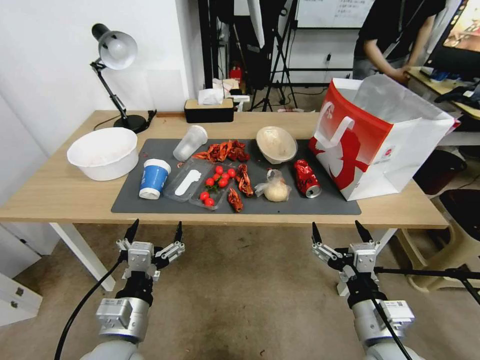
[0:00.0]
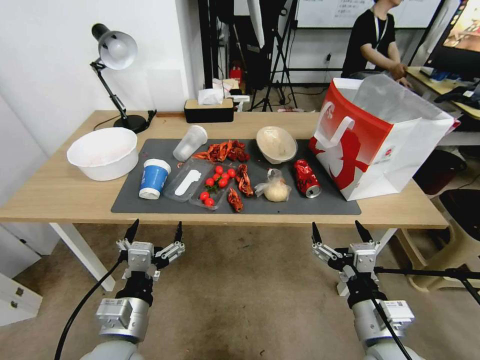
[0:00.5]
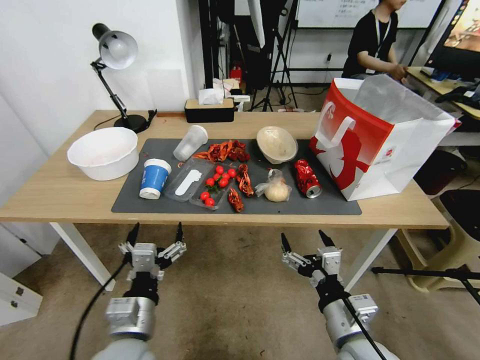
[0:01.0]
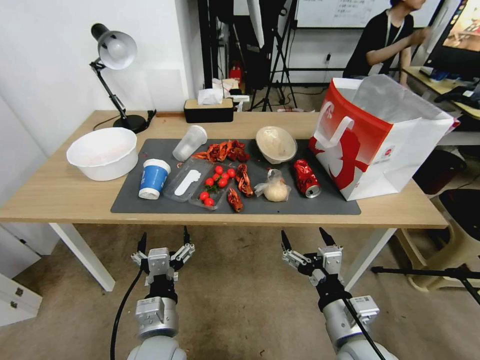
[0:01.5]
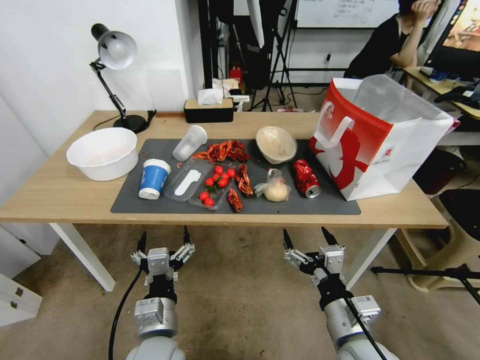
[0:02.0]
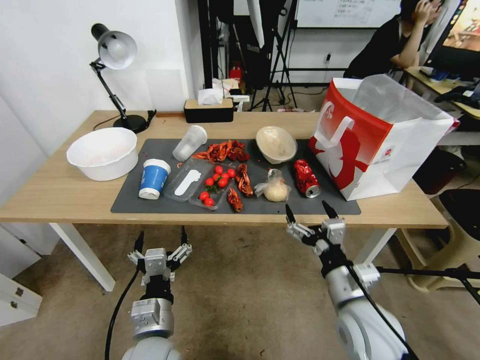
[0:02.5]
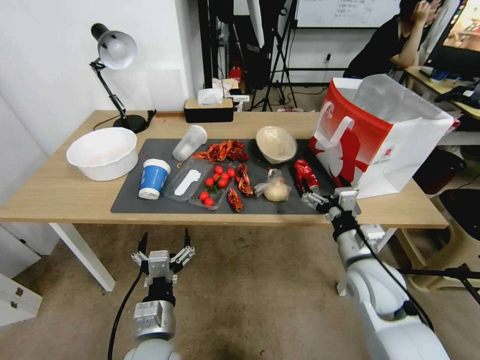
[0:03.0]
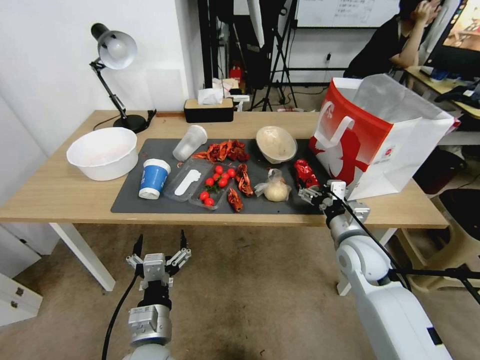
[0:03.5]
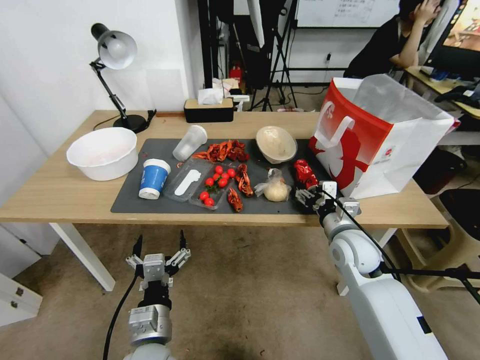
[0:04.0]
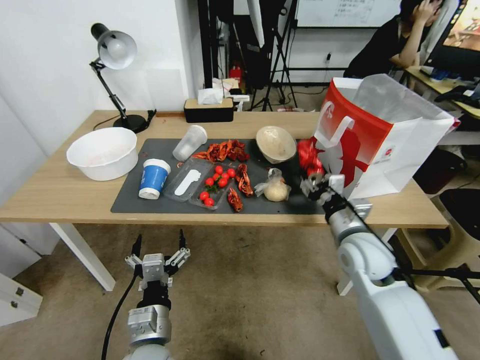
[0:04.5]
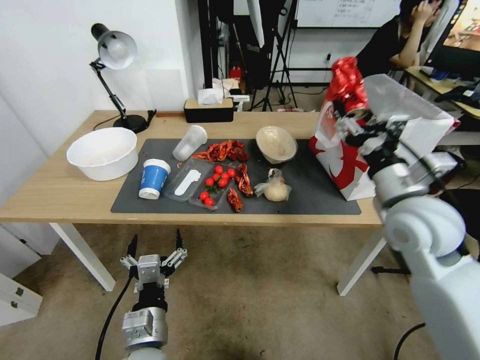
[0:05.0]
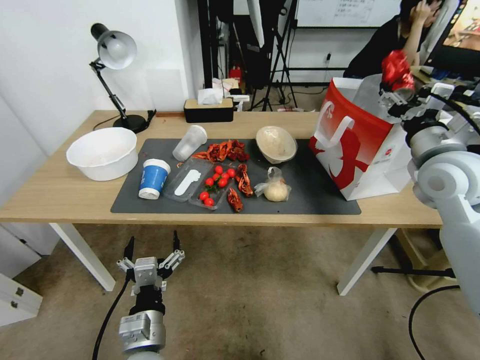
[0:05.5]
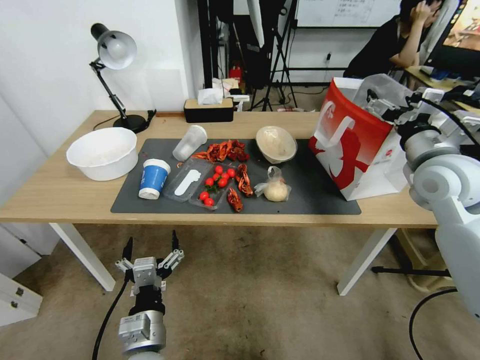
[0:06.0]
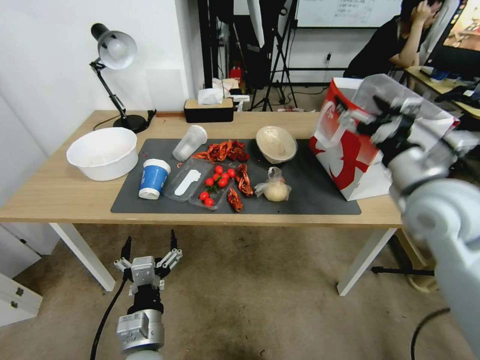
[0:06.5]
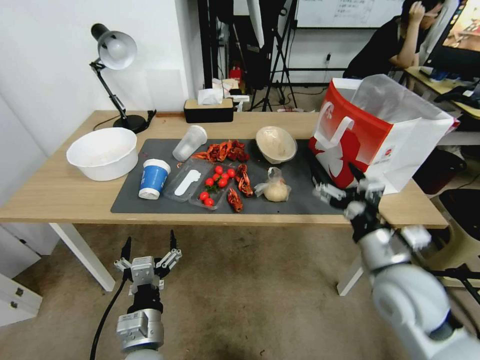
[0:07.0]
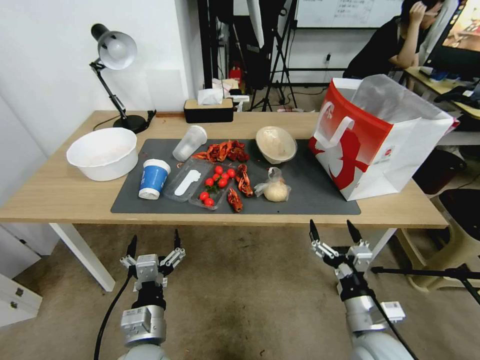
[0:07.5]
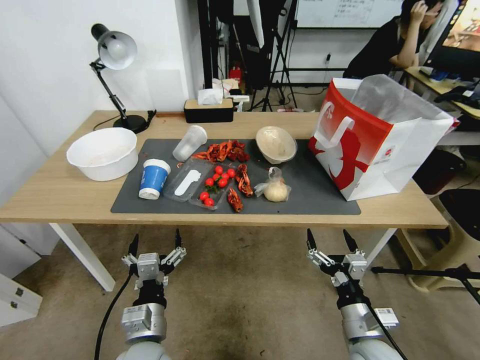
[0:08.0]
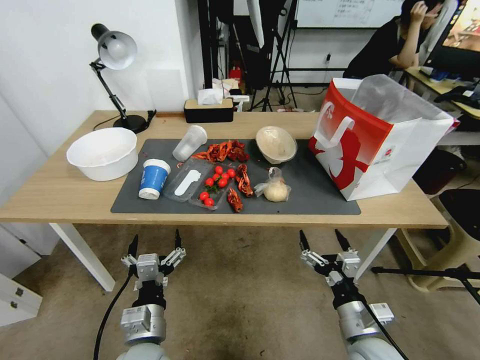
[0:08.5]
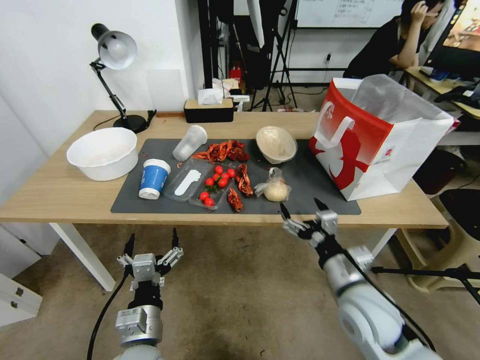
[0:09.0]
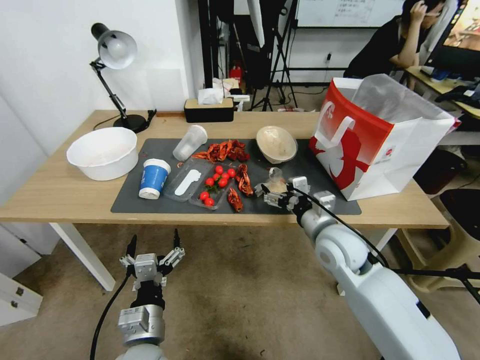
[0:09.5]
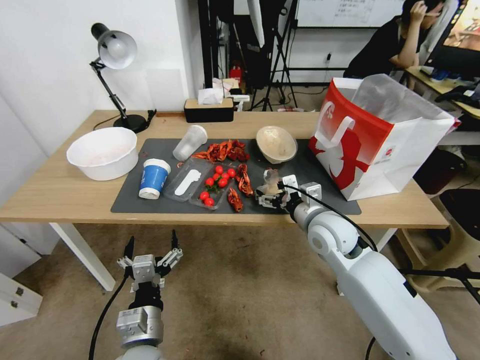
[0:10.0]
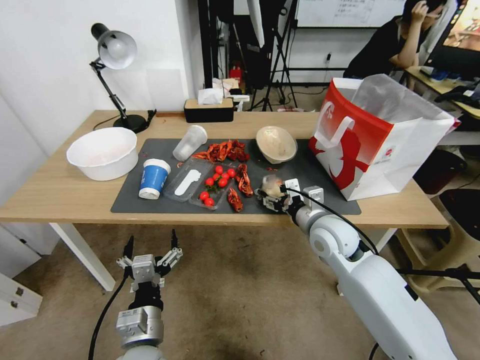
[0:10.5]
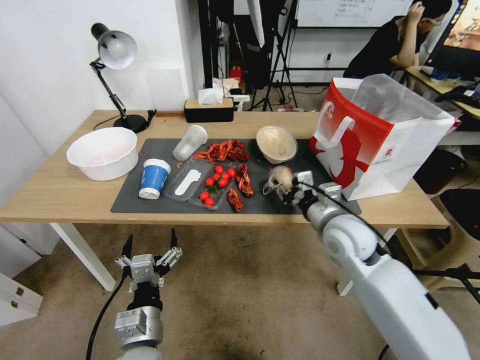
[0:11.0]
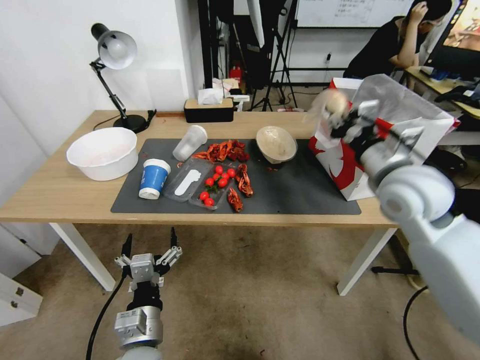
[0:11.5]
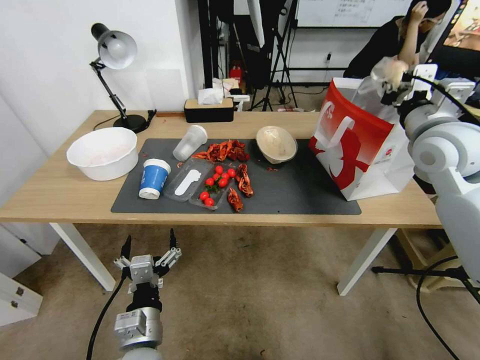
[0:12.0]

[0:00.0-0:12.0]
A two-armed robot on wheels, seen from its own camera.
0:02.0 to 0:04.0: The right gripper moves forward, about 20 cm.
0:04.0 to 0:06.0: The right gripper is displaced upward and to the right by some 20 cm.
0:06.0 to 0:08.0: The right gripper heads downward and backward, covering approximately 35 cm.
0:08.0 to 0:10.0: The right gripper travels forward and upward by some 25 cm.
0:10.0 to 0:12.0: The right gripper travels upward and to the right by about 25 cm, and closes.

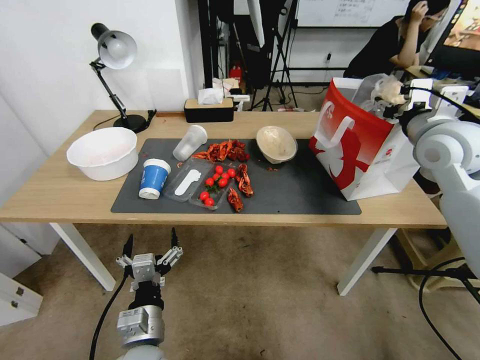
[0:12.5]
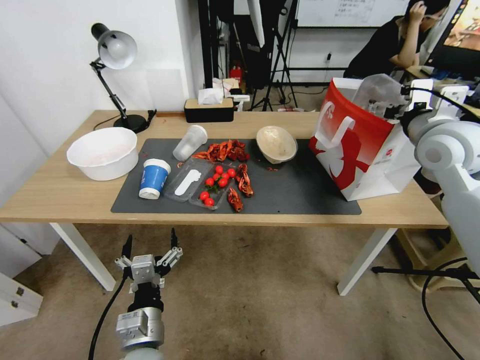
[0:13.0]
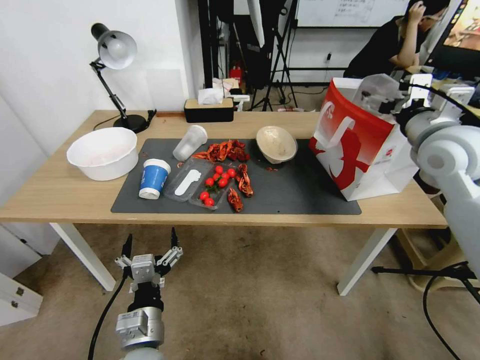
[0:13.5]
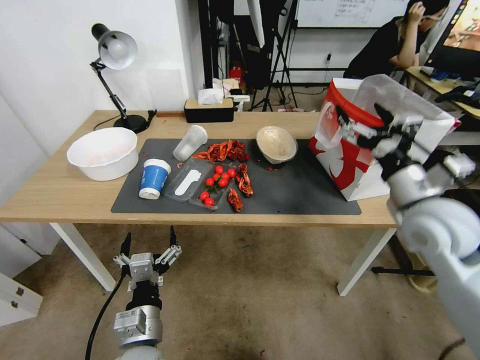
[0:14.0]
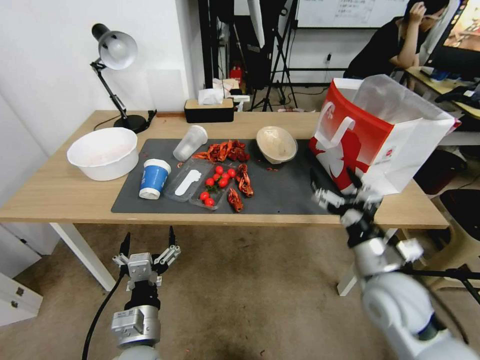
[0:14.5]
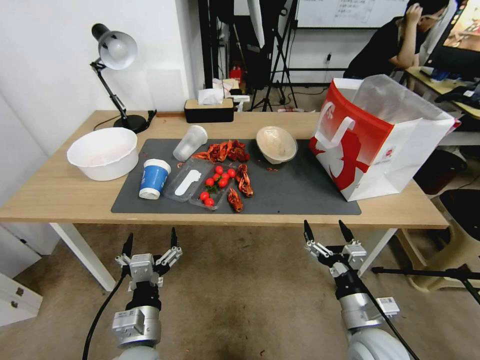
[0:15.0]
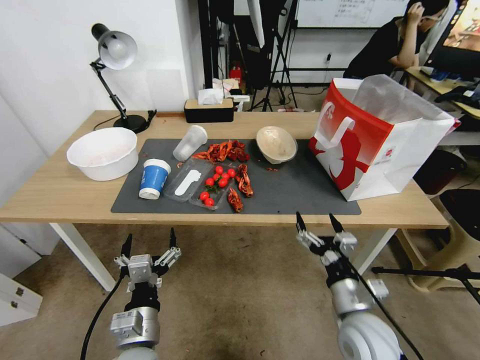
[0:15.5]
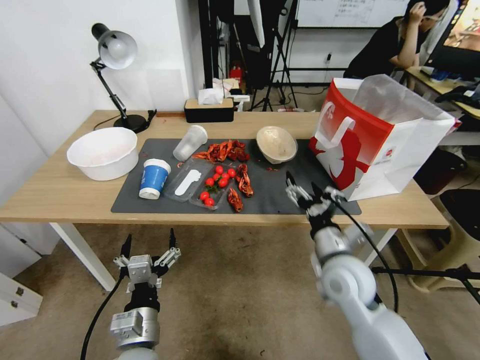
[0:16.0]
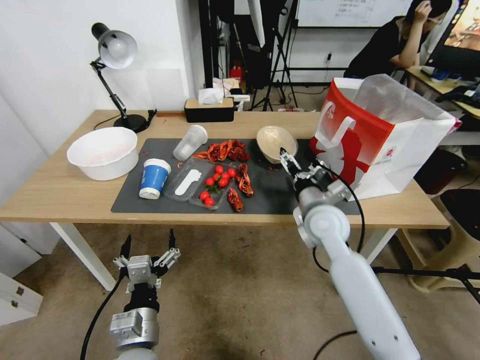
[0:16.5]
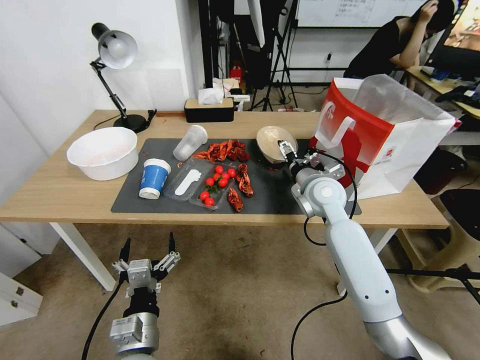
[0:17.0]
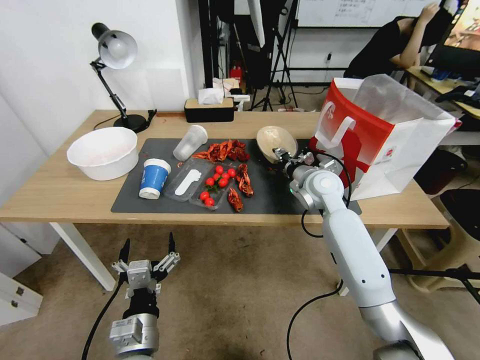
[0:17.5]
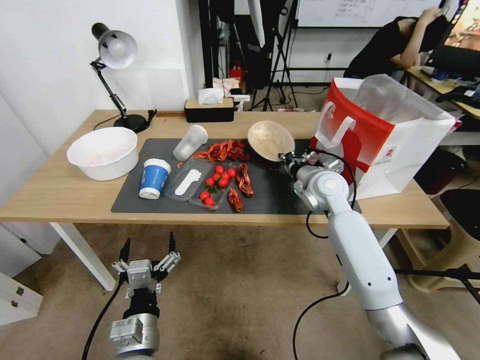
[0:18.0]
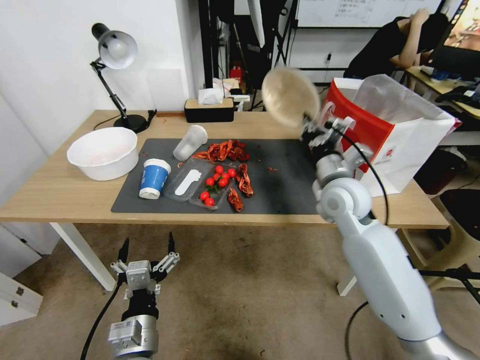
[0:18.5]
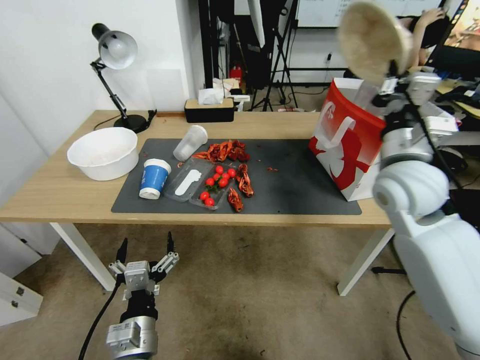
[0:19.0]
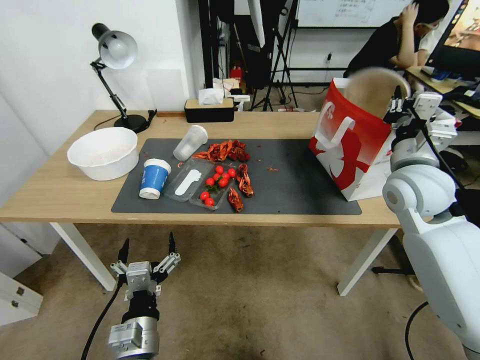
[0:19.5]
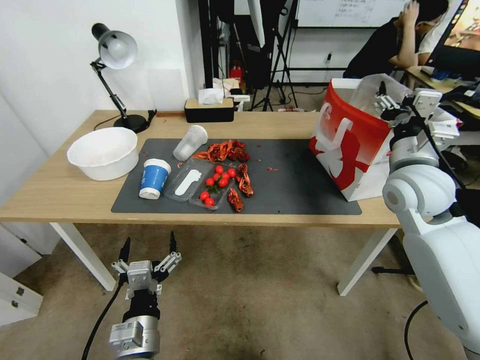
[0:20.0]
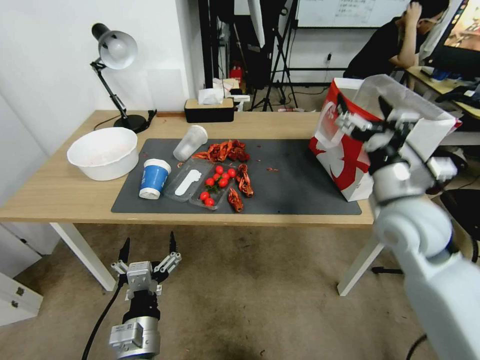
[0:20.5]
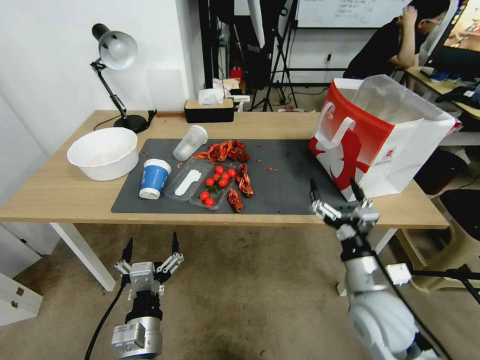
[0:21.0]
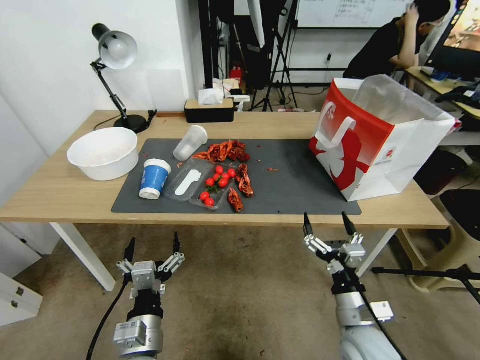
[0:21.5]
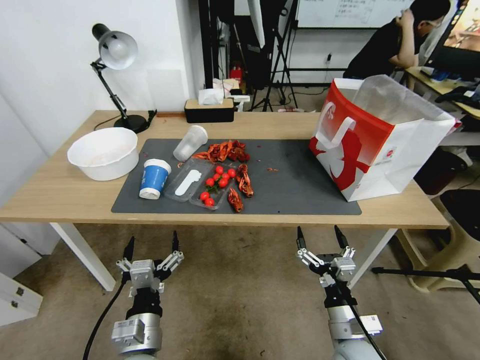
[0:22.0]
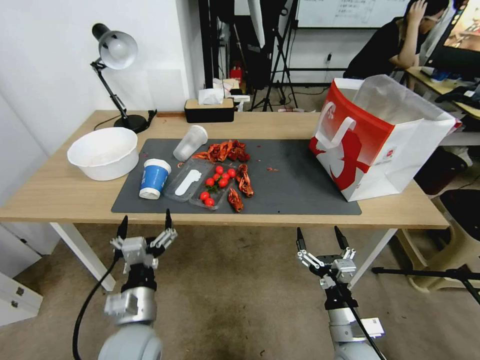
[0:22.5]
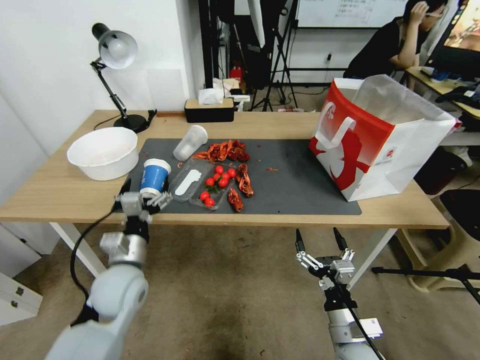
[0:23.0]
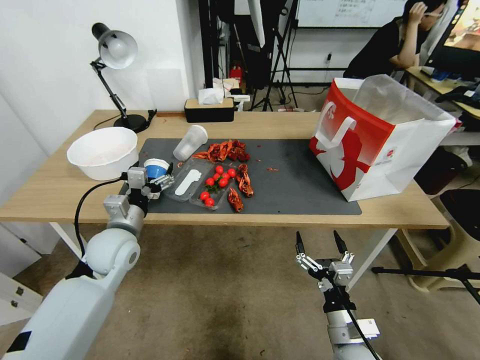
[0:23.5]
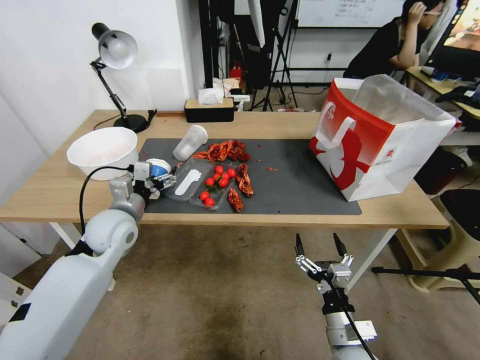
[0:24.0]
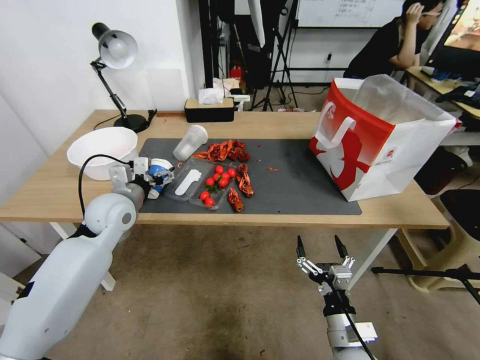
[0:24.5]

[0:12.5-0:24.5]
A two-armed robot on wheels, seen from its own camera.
0:12.5 to 0:14.5: The right gripper travels downward, backward and to the left by about 30 cm, and opens its fingers.
0:14.5 to 0:16.5: The right gripper travels forward and to the left by about 20 cm.
0:16.5 to 0:18.5: The right gripper goes forward and returns, about 10 cm each way, and closes up.
0:18.5 to 0:20.5: The right gripper shifts roughly 15 cm backward and to the right, and opens its fingers.
0:20.5 to 0:22.5: The right gripper travels downward and backward by roughly 30 cm.
0:22.5 to 0:24.5: The left gripper heads forward, upward and to the left, covering roughly 25 cm.

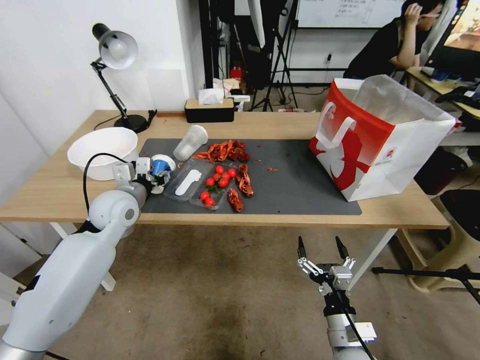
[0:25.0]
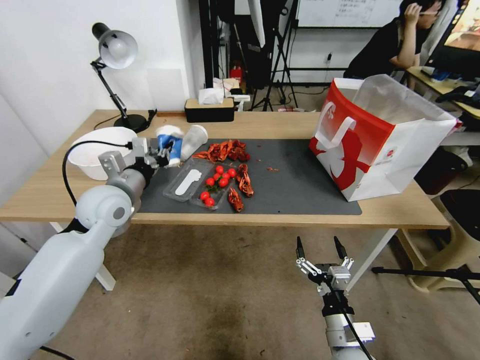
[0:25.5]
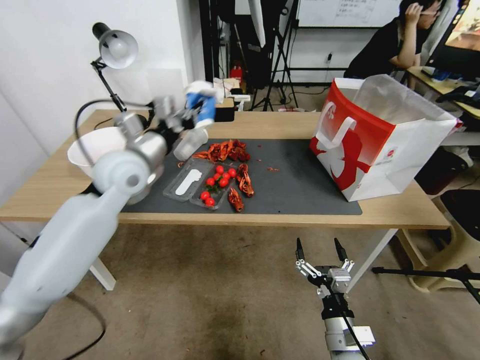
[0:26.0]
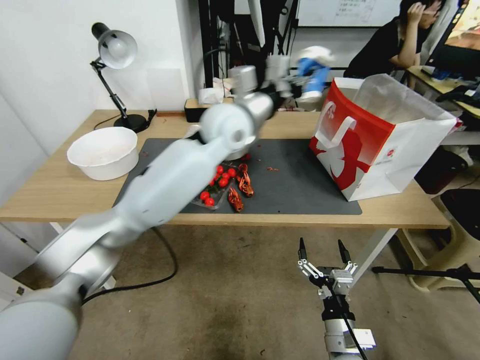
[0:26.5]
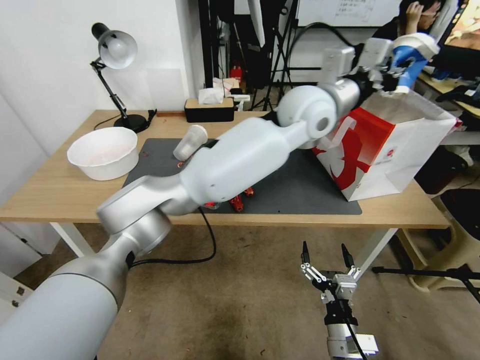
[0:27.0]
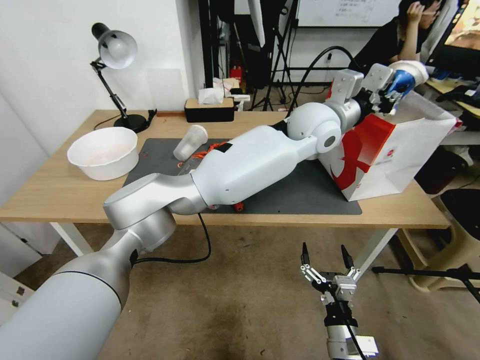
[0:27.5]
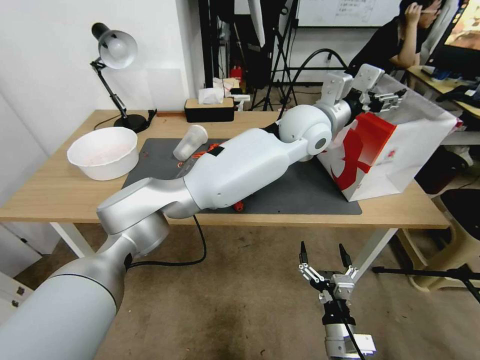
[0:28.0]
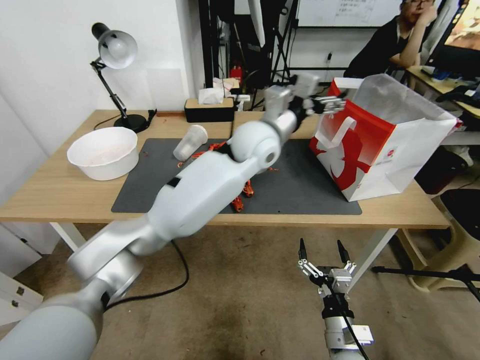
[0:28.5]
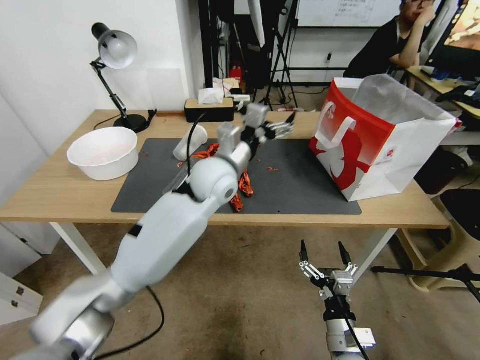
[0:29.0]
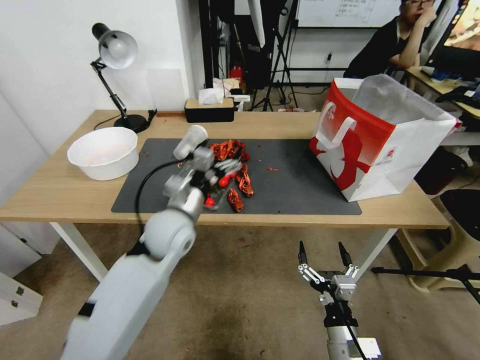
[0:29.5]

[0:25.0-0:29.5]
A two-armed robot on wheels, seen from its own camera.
0:25.0 to 0:27.0: The left gripper goes approximately 40 cm to the right and upward, and closes its fingers.
0:27.0 to 0:29.5: The left gripper is displaced to the left, downward and backward by some 35 cm, and opens.
